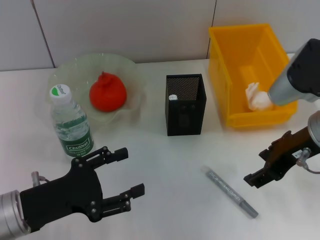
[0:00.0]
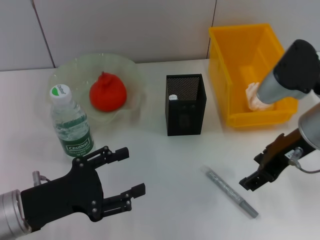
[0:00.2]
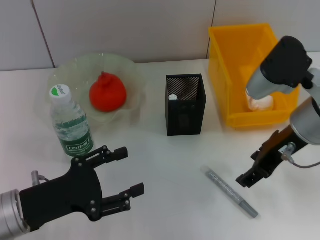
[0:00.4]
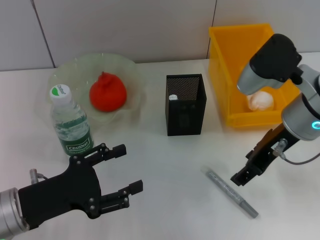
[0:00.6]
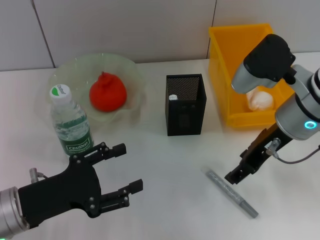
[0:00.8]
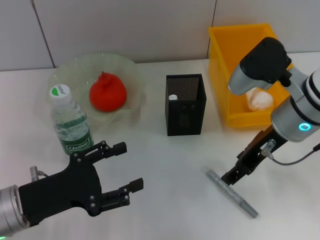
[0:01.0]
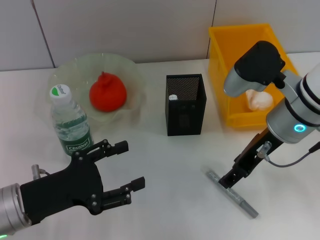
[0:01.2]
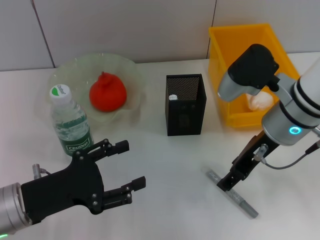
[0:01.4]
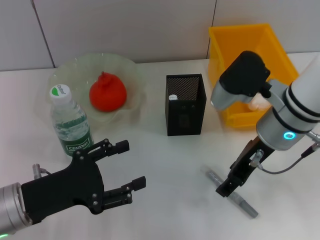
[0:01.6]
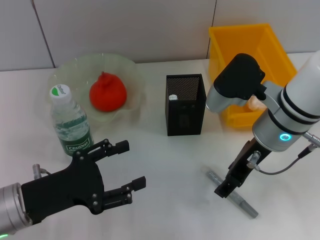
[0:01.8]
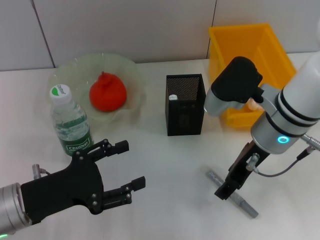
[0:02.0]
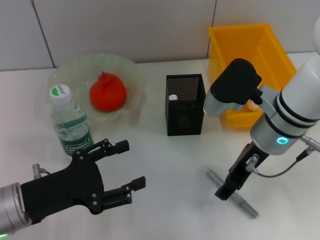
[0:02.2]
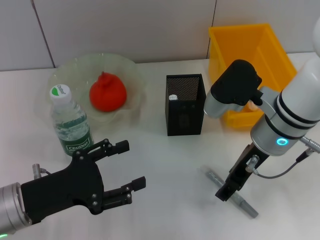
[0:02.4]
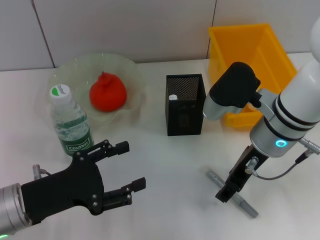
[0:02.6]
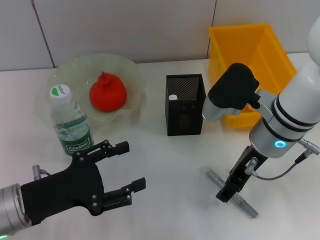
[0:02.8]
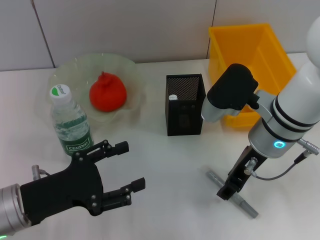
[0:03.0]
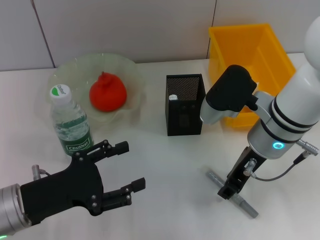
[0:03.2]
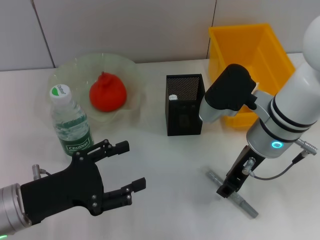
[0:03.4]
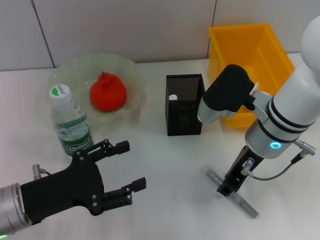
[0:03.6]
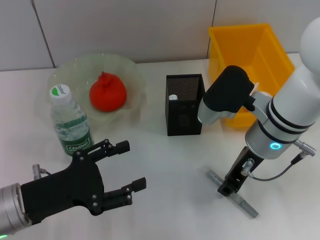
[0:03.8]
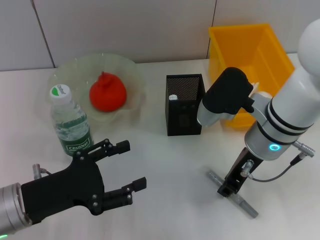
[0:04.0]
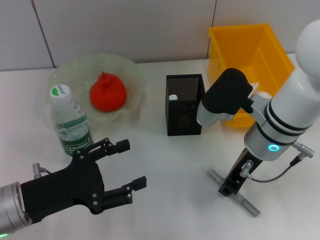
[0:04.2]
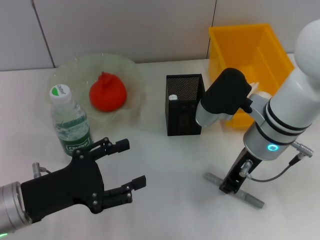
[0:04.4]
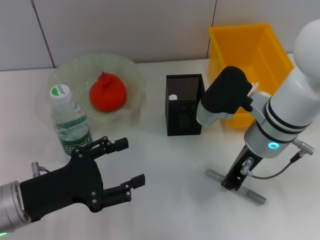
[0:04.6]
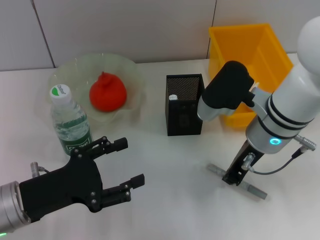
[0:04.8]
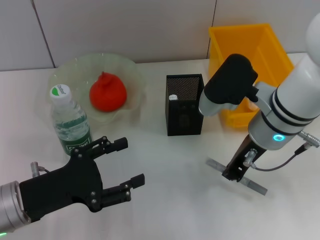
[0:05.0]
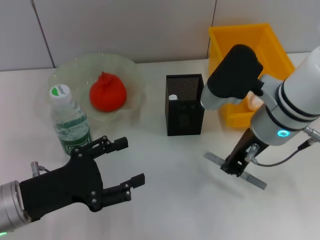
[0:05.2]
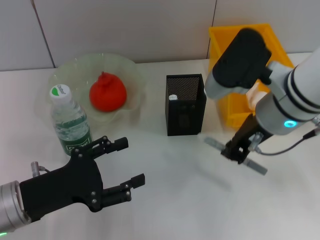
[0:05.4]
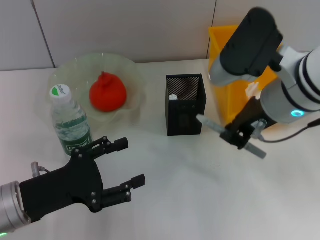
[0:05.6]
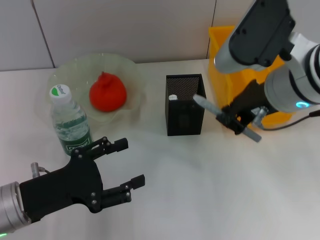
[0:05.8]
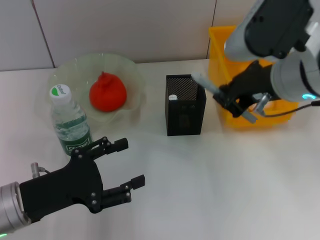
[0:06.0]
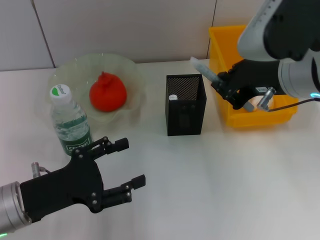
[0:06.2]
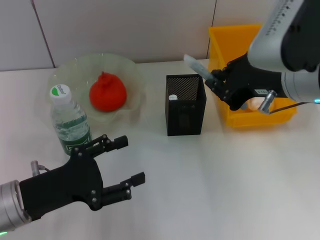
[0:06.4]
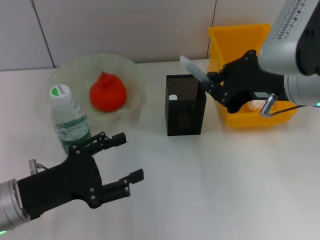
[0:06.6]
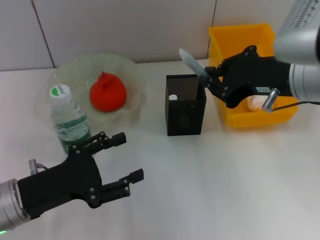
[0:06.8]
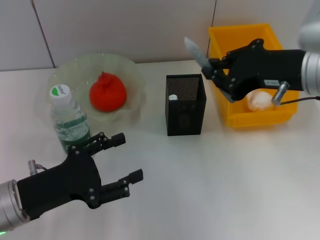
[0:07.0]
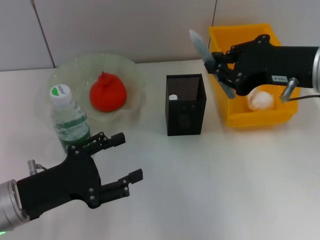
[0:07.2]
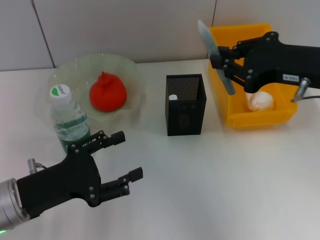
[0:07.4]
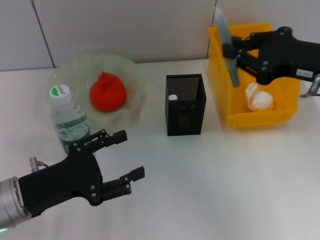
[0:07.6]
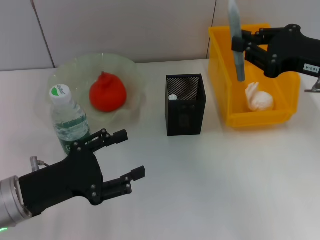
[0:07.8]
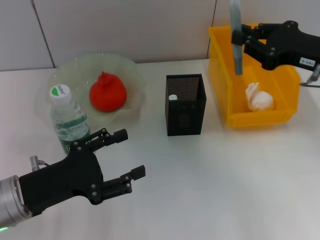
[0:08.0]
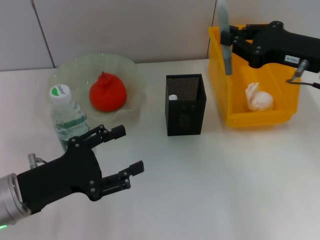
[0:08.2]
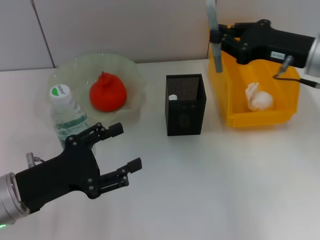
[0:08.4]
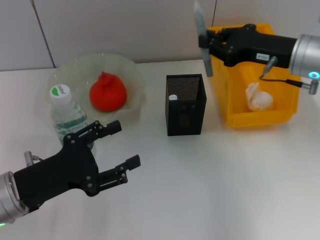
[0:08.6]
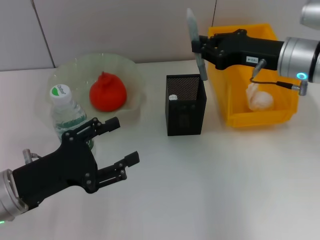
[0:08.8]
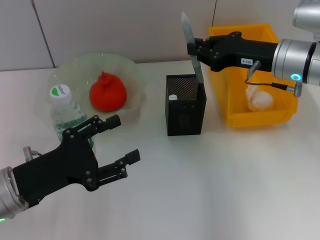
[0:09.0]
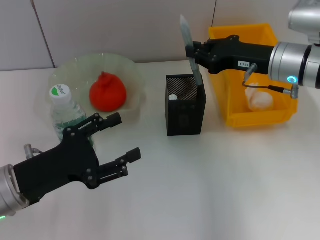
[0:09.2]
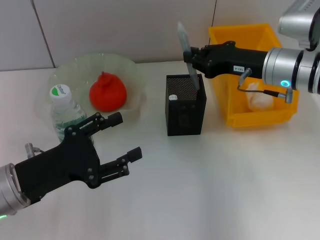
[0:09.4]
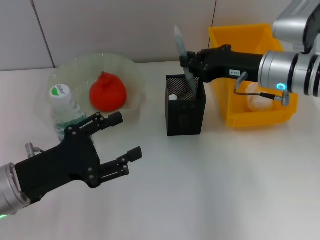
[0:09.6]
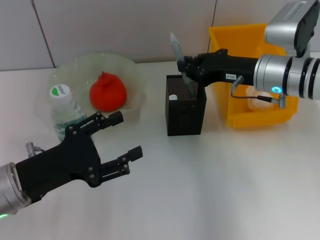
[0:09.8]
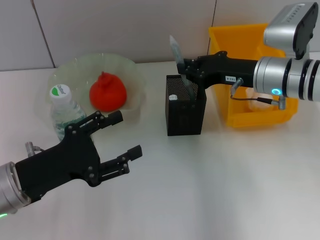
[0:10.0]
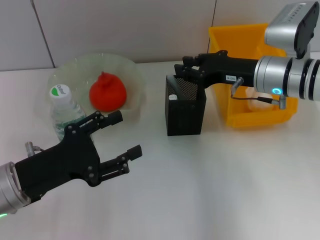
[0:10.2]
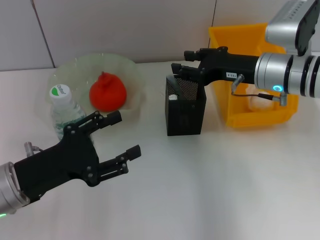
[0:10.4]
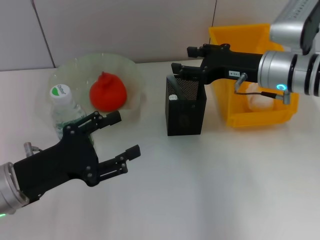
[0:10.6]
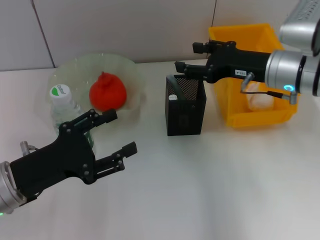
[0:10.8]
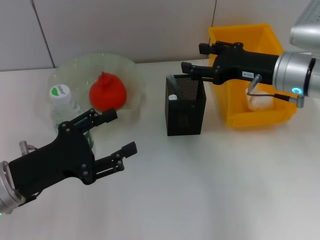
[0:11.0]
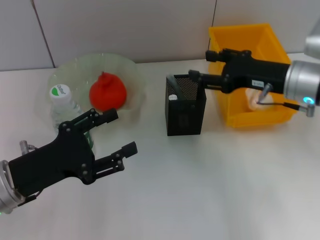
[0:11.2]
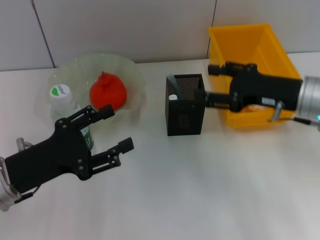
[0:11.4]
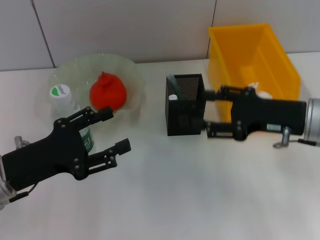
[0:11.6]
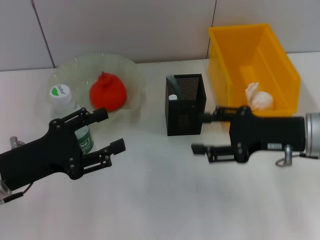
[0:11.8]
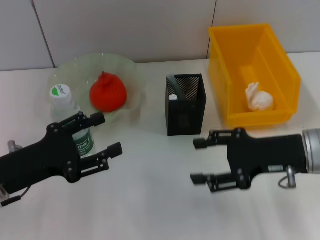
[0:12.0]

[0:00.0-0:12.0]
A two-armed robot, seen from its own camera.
Step, 0:00.0 to 0:04.2: Grab the gray glue with the right hand.
Step, 0:04.4 to 0:11.0: Place the gray glue into the pen holder with the right hand.
0:00.0 to 0:01.6: The right gripper shifts approximately 5 cm to the left.
0:01.6 to 0:03.0: There are only small adjustments of the grippers.
0:03.0 to 0:04.4: The right gripper closes up.
0:04.4 to 0:06.0: The right gripper goes some 10 cm upward.
0:06.0 to 0:07.6: The right gripper moves to the right, some 10 cm.
0:07.6 to 0:09.0: The right gripper shifts about 10 cm forward and downward.
0:09.0 to 0:10.4: The right gripper opens up.
0:10.4 to 0:12.0: The right gripper heads backward, covering some 10 cm, and opens.

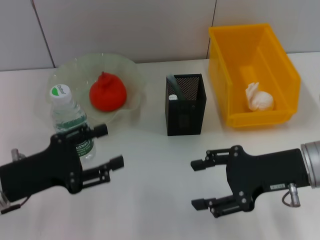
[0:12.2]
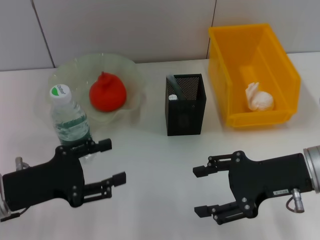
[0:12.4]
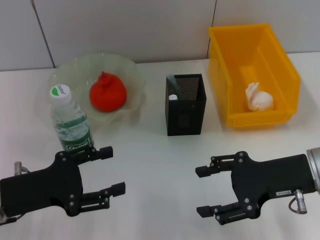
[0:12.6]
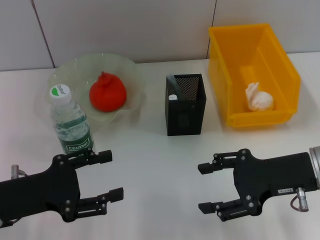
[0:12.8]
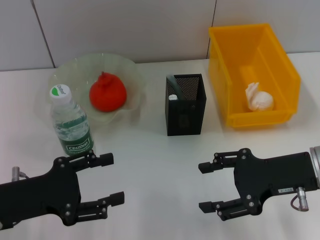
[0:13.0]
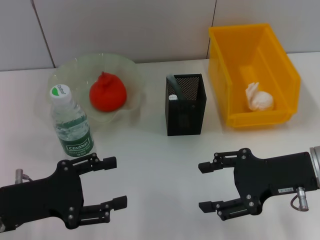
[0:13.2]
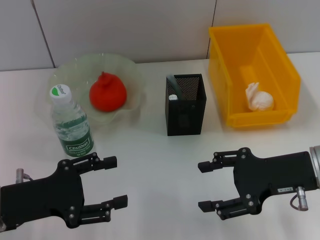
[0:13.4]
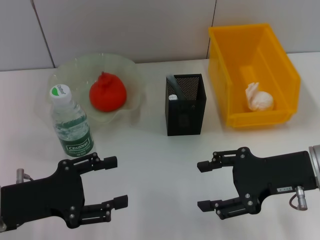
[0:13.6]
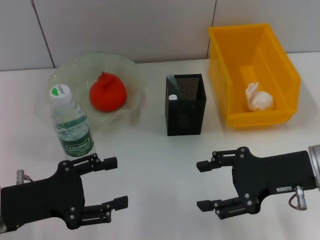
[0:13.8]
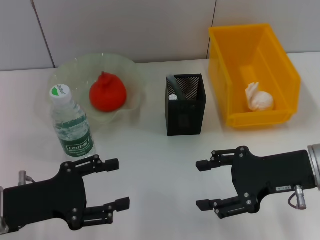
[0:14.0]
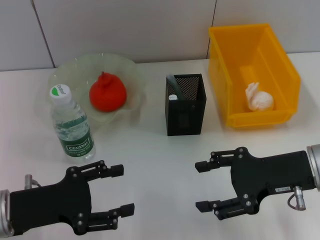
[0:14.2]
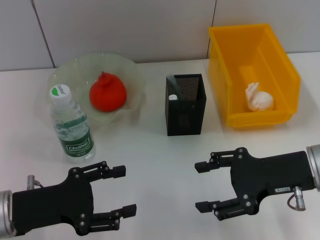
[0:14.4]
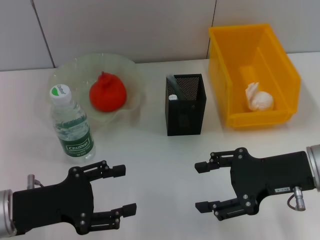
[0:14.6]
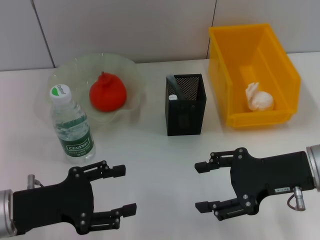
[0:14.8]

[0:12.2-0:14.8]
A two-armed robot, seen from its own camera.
0:12.2 to 0:13.4: The grippers move only a little.
0:13.4 to 0:14.8: The two grippers keep their place.
